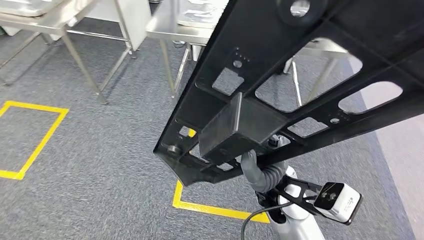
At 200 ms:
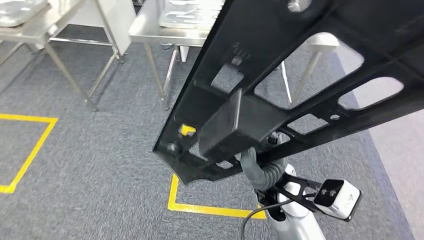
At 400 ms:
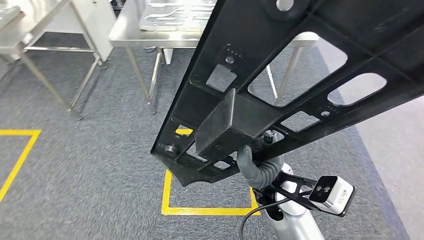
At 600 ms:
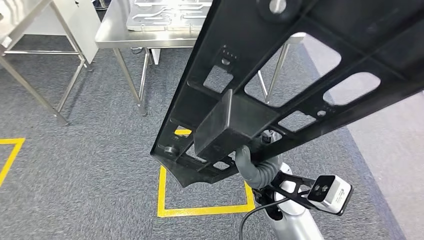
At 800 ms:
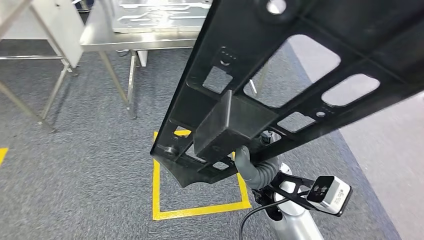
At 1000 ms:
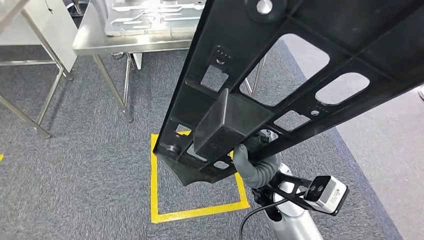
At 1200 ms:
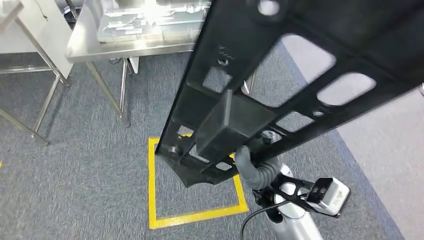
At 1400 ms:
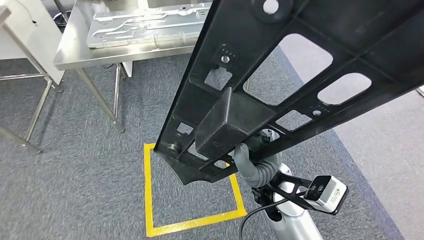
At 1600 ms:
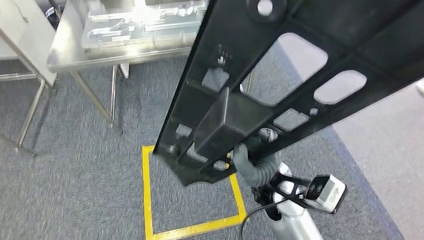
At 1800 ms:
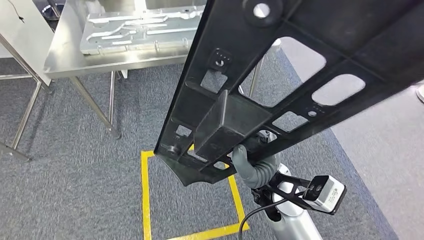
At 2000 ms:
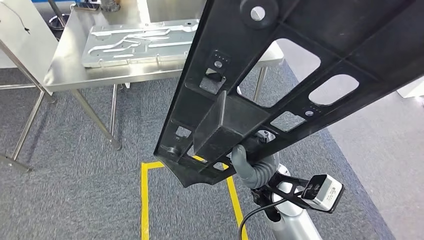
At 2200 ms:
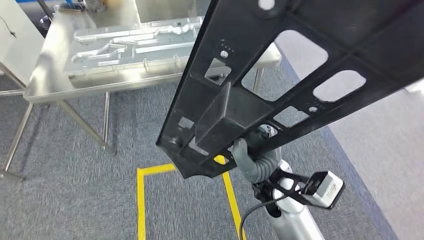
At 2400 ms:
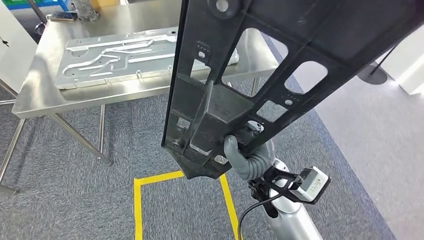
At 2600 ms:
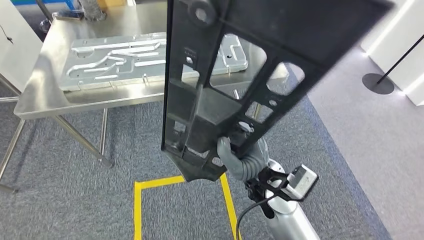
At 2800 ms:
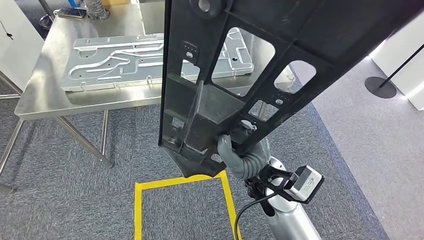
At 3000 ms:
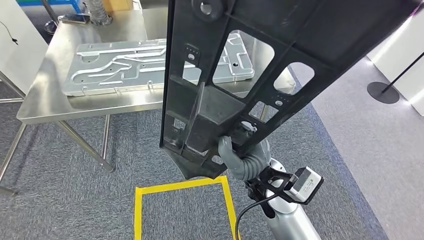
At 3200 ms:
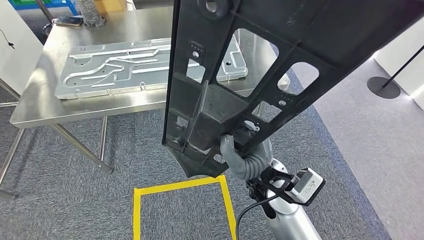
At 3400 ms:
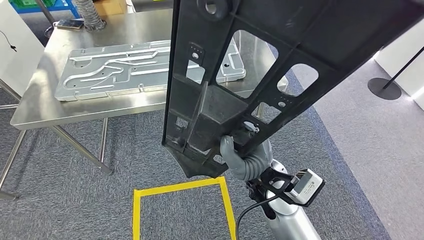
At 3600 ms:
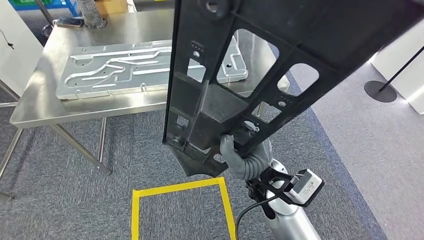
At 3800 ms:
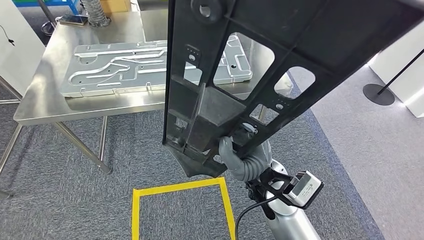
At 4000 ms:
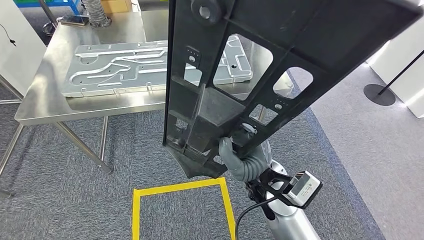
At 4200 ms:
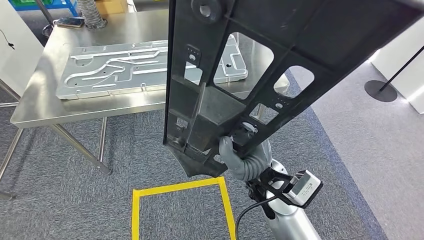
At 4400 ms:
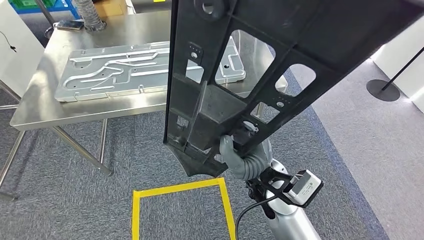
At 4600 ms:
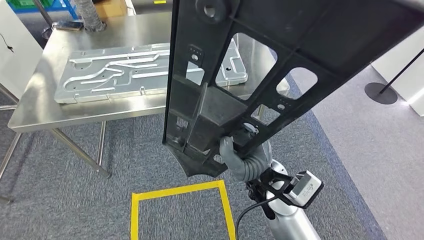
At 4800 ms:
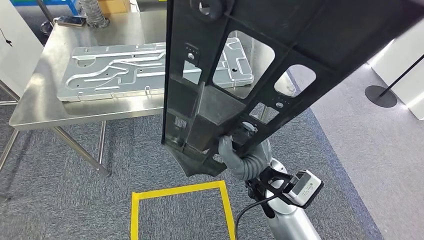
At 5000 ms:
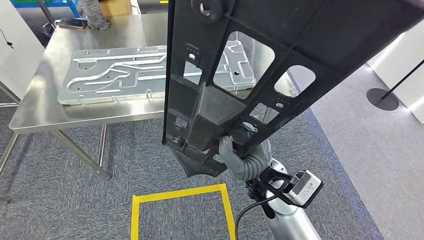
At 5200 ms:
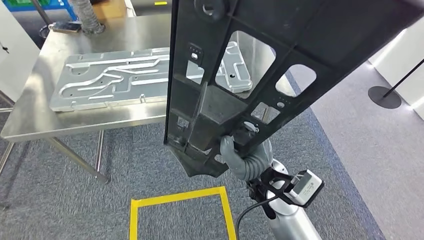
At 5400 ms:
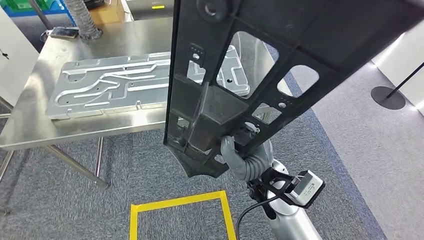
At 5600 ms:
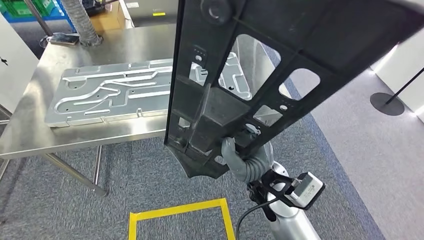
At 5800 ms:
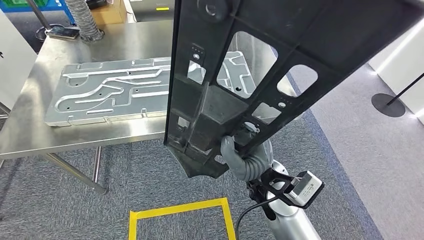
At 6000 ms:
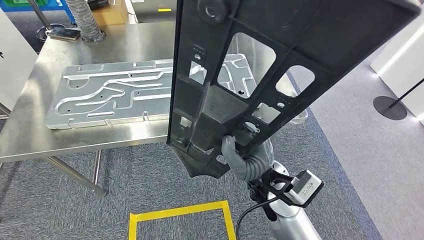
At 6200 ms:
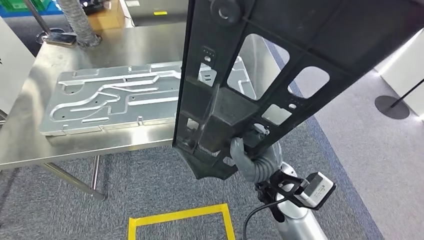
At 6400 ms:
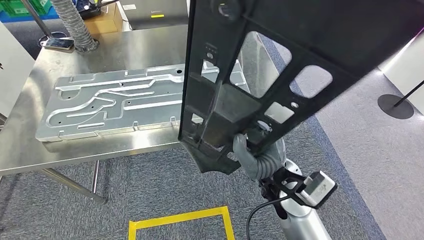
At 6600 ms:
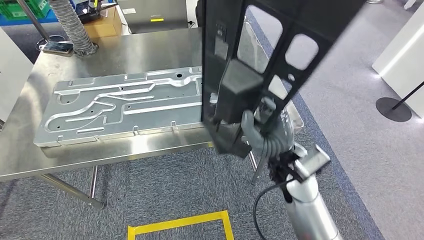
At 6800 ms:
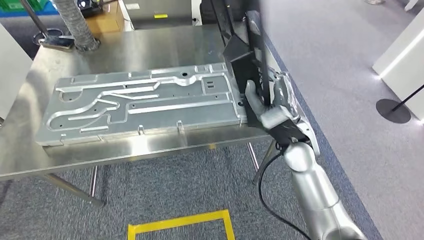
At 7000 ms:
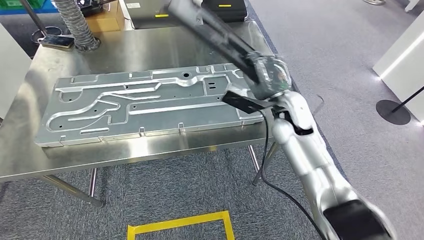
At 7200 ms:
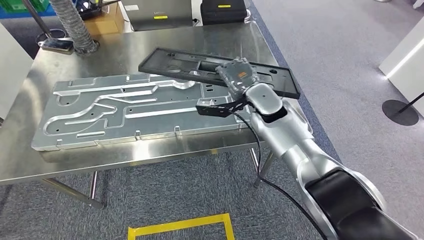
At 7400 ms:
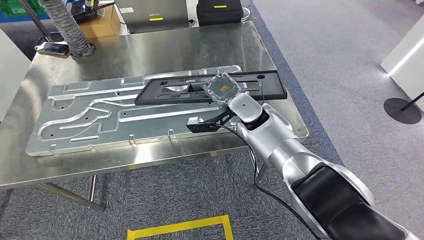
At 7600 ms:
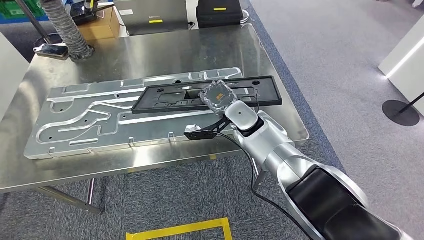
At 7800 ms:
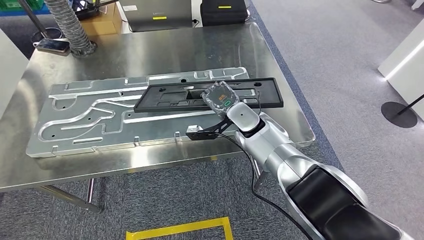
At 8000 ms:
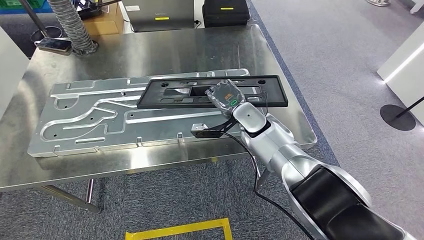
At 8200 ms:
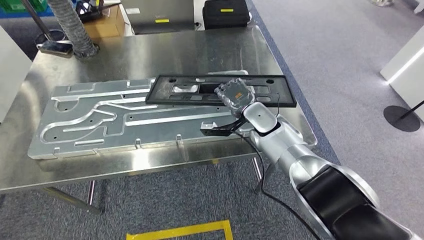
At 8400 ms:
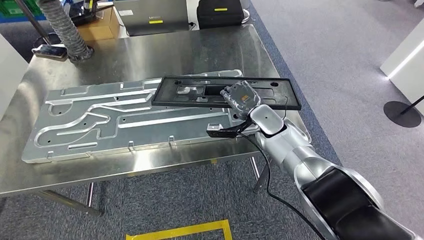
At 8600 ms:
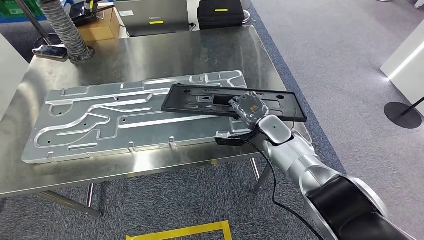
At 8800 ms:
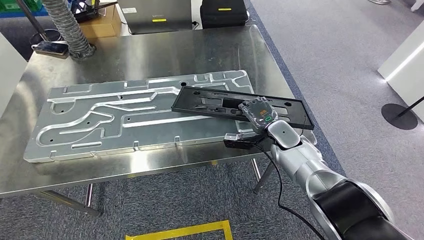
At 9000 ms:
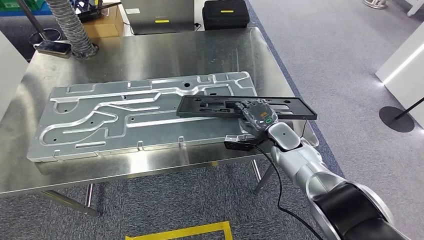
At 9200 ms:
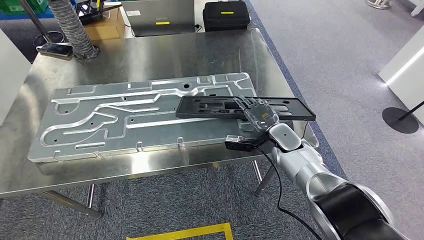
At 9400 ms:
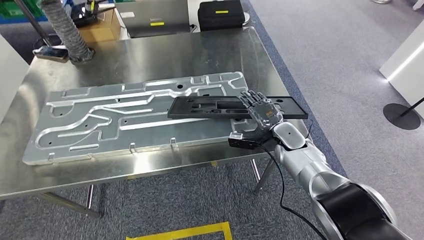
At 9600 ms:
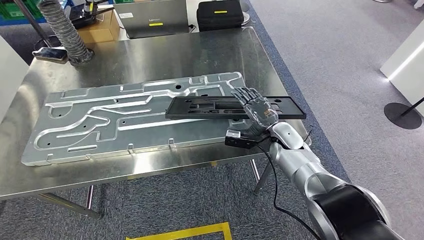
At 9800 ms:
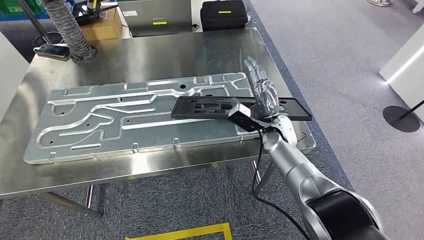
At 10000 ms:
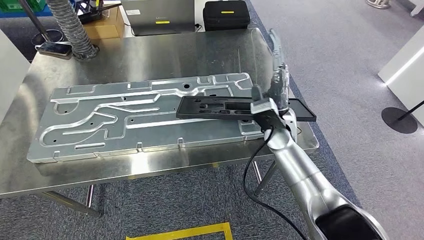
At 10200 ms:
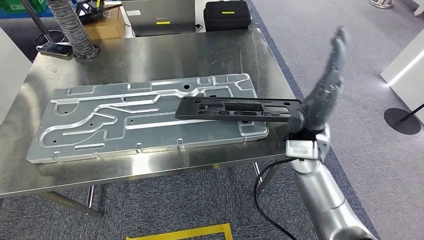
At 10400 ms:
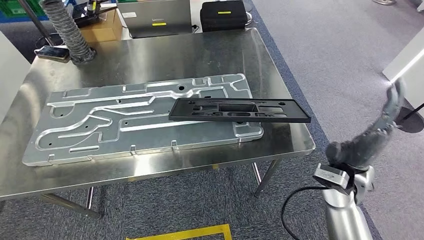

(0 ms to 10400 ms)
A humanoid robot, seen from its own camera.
Step, 0 ms - 6400 ms: Move the large material to the workbench.
3000 ms - 4400 ms: The two hands keep their place.

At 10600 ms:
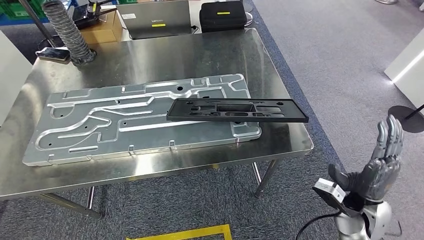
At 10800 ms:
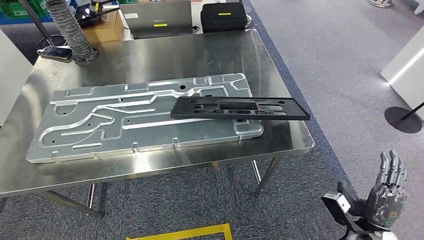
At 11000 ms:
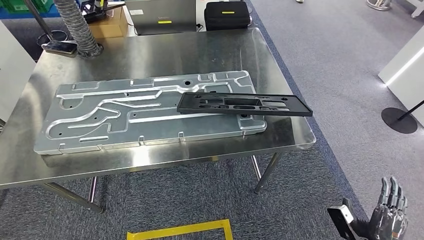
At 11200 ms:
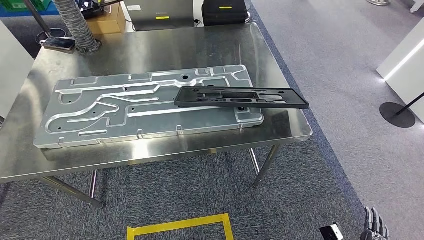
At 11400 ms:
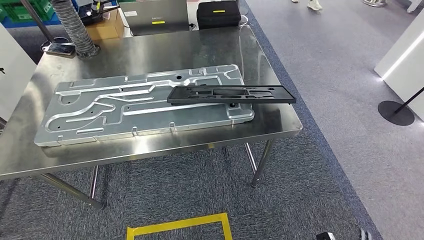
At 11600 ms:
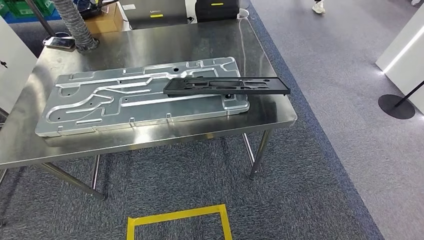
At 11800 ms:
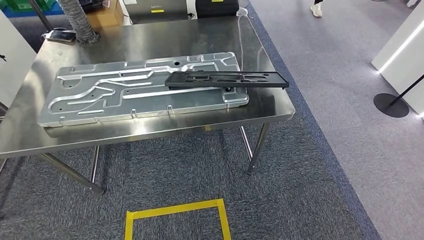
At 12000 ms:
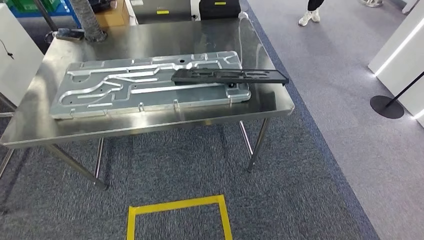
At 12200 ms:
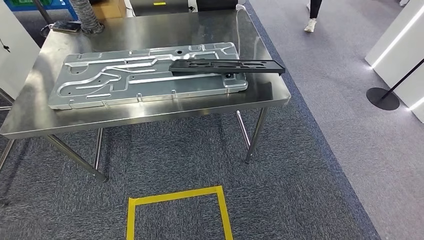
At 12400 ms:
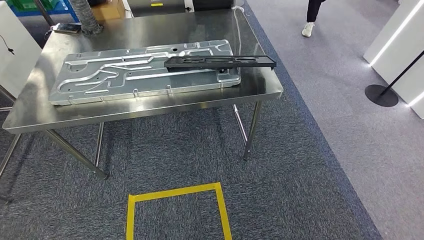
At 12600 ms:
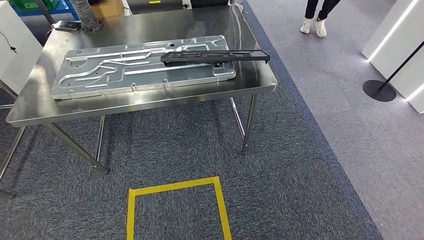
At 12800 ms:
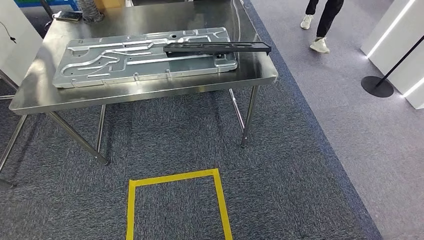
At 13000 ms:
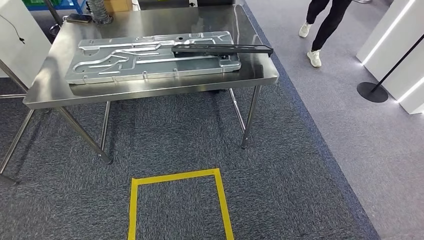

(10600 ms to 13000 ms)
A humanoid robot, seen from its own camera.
Step, 10800 ms - 13000 ms: Move to the initial position of the shelf.
